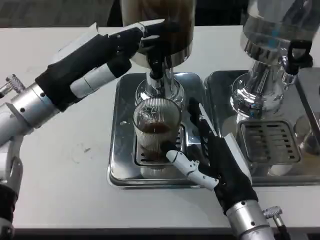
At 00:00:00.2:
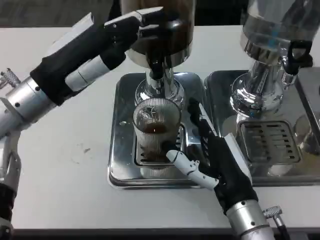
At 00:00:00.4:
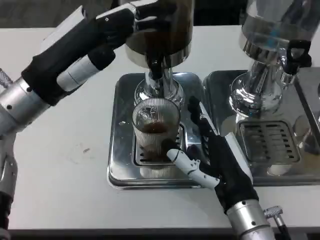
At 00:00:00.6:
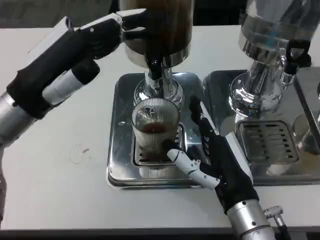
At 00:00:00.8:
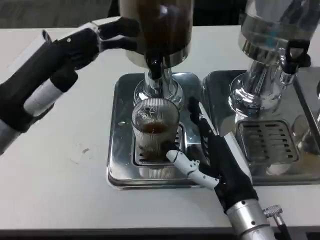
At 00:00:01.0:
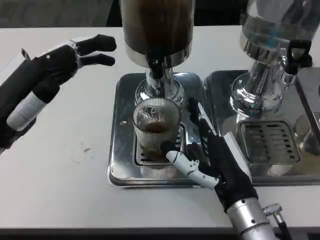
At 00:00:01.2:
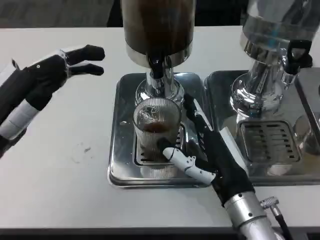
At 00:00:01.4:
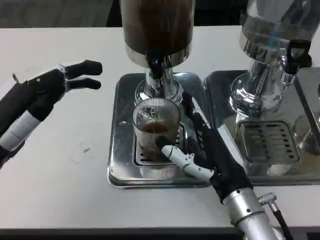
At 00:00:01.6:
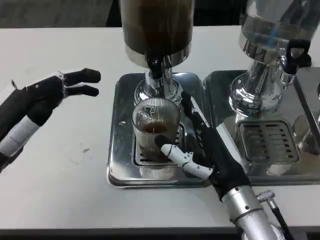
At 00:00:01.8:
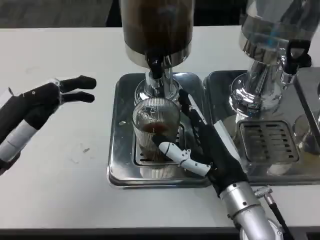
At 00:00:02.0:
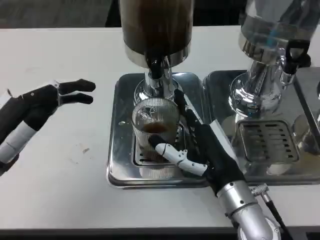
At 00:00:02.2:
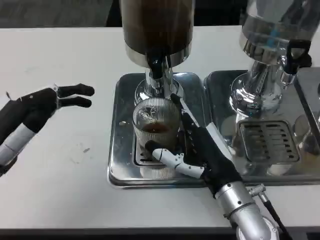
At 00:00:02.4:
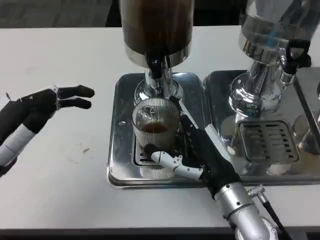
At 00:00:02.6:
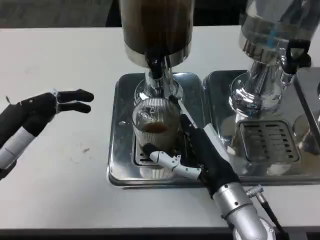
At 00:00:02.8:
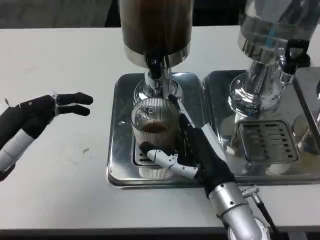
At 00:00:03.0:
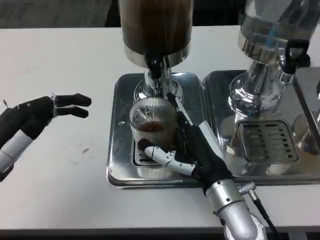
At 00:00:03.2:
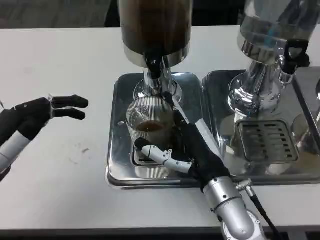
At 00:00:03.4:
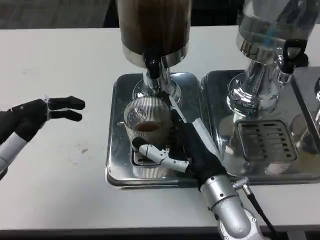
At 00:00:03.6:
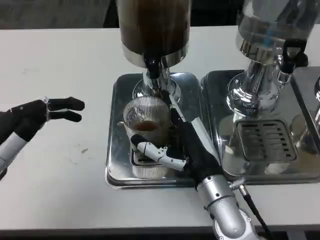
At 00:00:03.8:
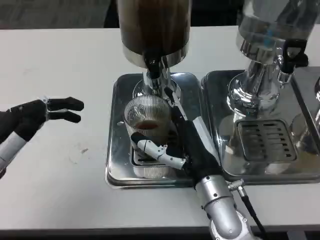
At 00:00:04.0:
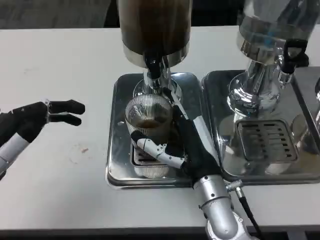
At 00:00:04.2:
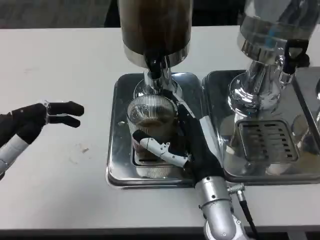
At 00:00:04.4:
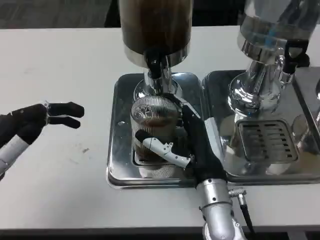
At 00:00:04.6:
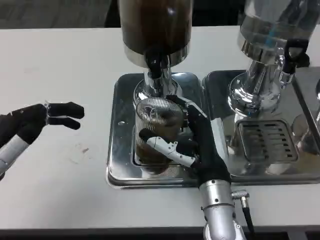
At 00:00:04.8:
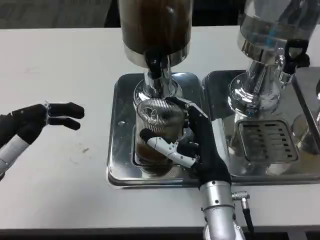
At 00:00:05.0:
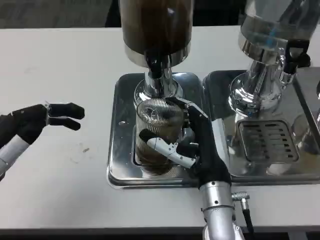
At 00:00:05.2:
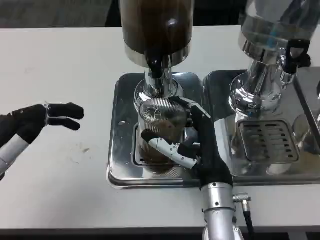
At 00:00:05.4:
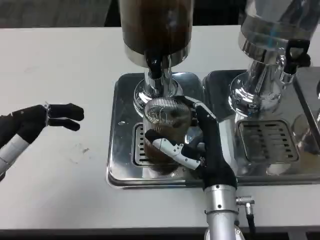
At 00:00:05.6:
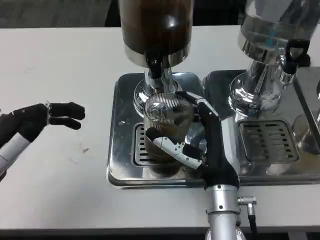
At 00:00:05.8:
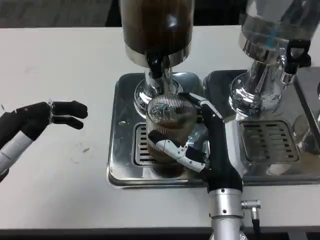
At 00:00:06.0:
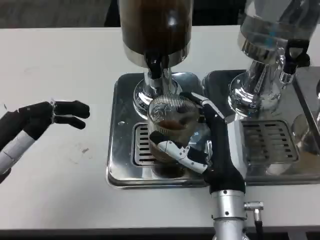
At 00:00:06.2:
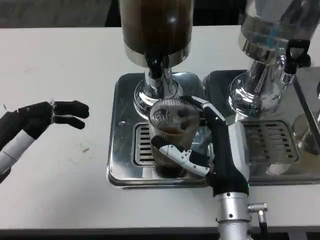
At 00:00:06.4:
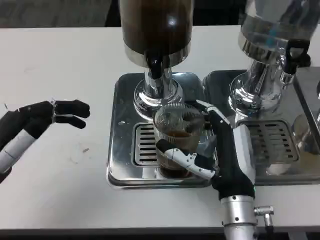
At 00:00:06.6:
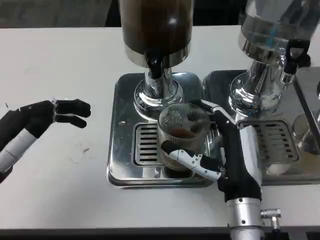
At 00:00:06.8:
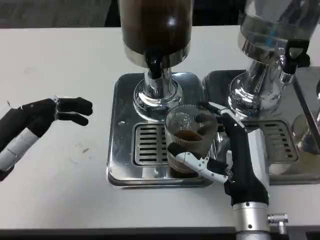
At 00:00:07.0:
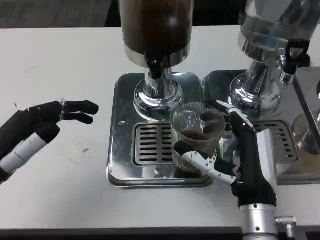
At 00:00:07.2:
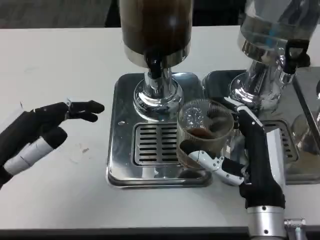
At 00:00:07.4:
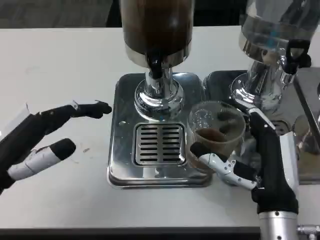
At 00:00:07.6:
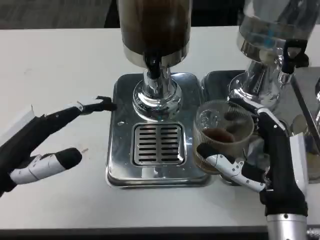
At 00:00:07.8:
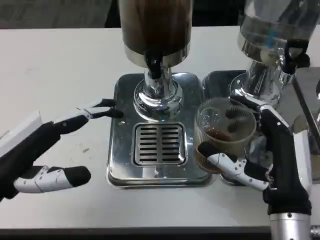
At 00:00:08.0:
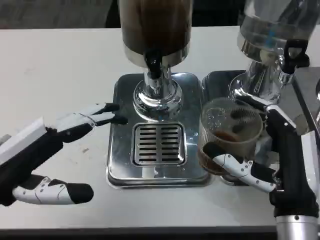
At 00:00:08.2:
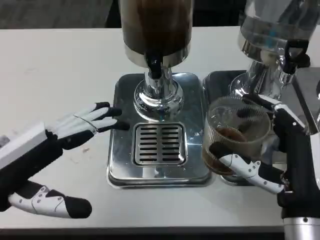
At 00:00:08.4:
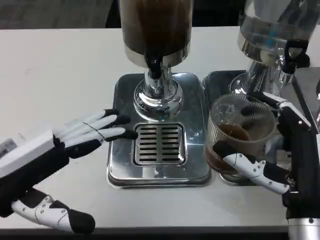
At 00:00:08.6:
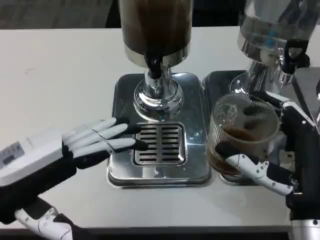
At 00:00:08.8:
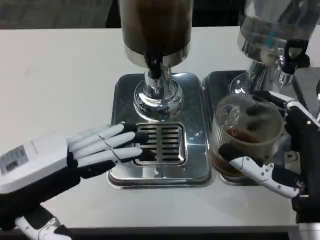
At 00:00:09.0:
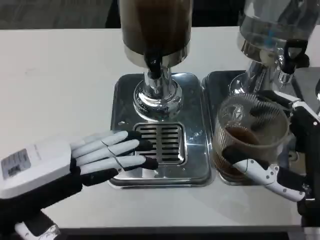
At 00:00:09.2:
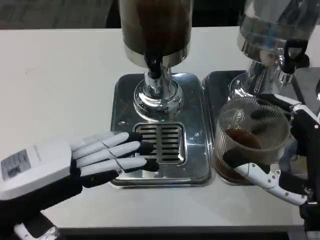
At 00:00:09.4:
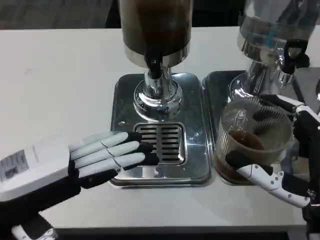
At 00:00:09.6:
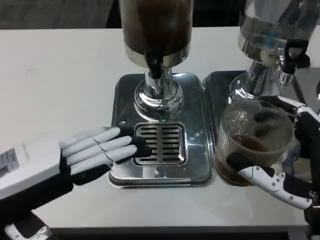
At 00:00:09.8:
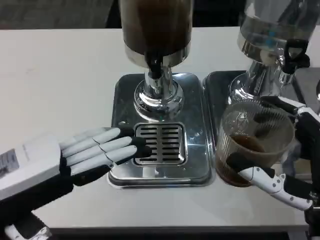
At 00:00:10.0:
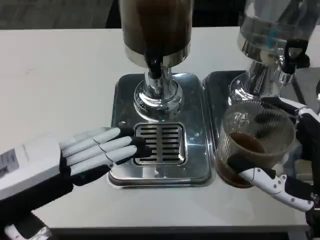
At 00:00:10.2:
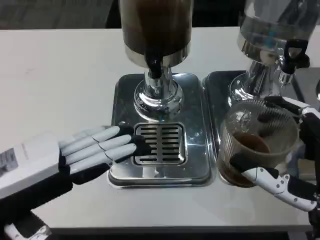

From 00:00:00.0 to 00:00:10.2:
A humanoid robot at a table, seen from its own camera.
Task of the whole recording: Grasp the cup under the faucet to collect the drink, then remove the cup.
From 00:00:00.0 to 00:00:01.4: The left hand shifts roughly 10 cm backward and to the left.
From 00:00:03.0 to 00:00:04.4: The hands move only a little.
From 00:00:04.4 to 00:00:05.8: The hands make only small movements.
From 00:00:05.8 to 00:00:07.2: The right hand shifts by about 5 cm.
From 00:00:07.2 to 00:00:08.8: The right hand changes place by about 10 cm. Meanwhile the left hand shifts by about 5 cm.
From 00:00:08.8 to 00:00:10.2: The hands stay close to where they were, moving slightly.
